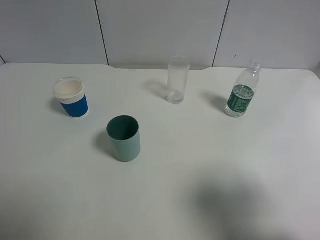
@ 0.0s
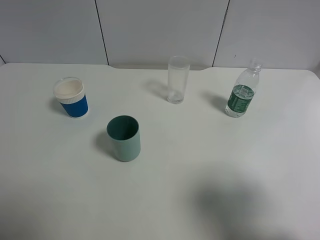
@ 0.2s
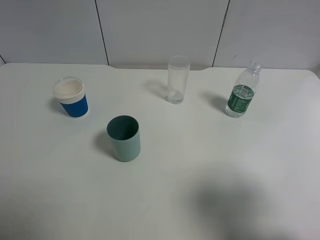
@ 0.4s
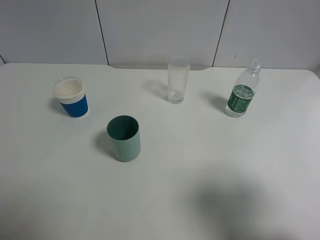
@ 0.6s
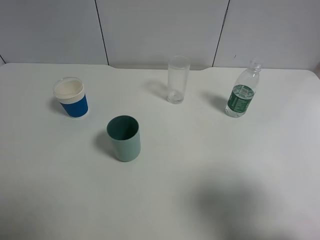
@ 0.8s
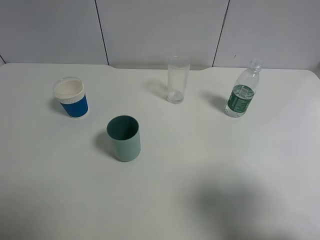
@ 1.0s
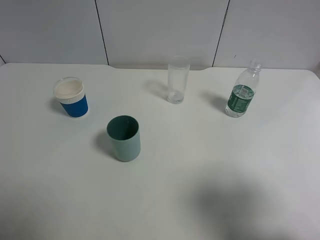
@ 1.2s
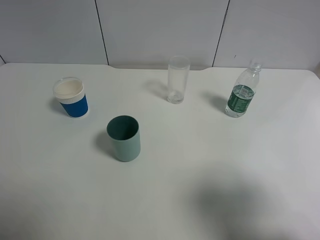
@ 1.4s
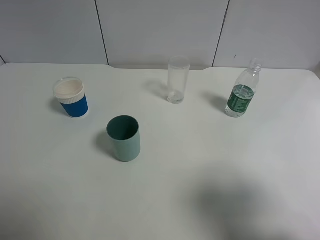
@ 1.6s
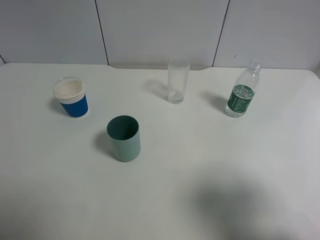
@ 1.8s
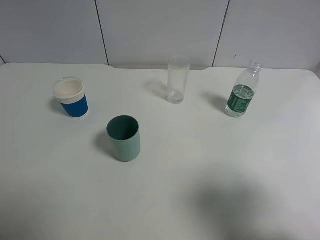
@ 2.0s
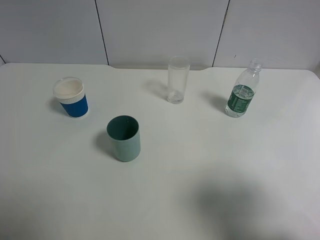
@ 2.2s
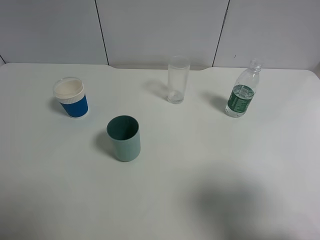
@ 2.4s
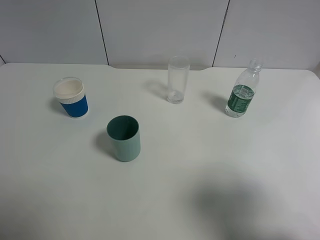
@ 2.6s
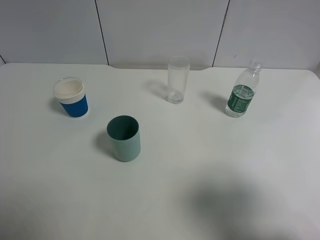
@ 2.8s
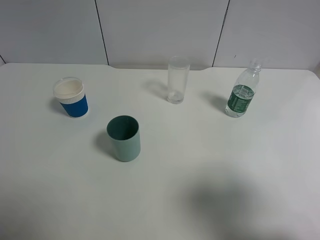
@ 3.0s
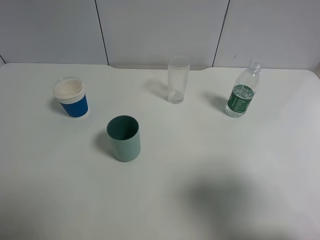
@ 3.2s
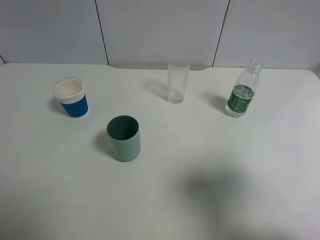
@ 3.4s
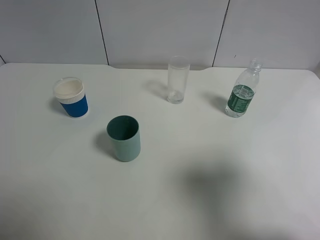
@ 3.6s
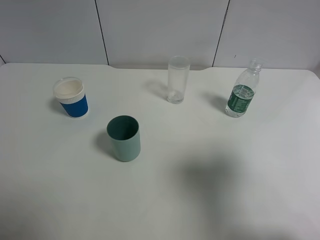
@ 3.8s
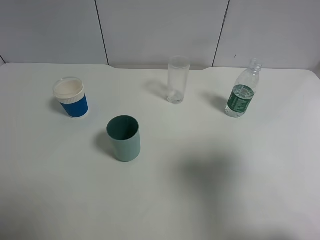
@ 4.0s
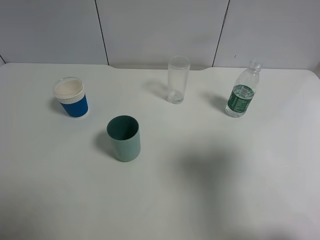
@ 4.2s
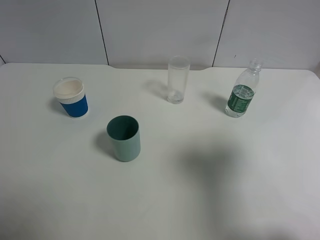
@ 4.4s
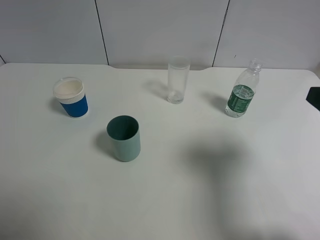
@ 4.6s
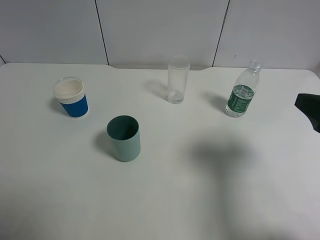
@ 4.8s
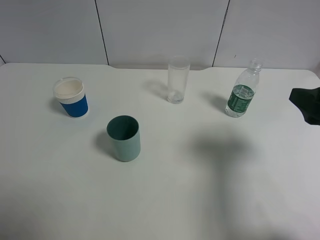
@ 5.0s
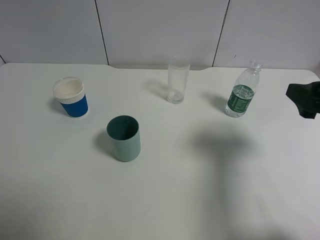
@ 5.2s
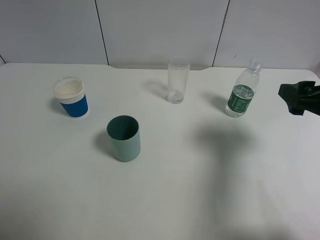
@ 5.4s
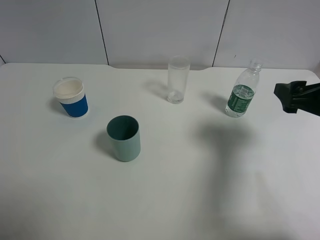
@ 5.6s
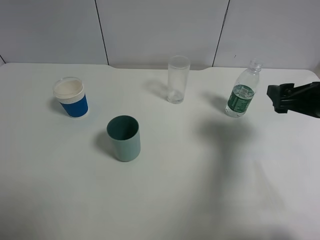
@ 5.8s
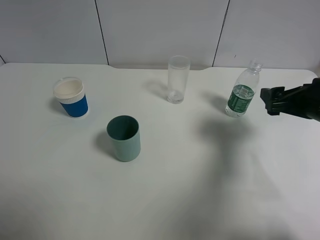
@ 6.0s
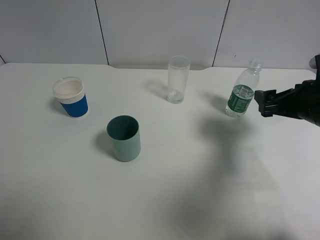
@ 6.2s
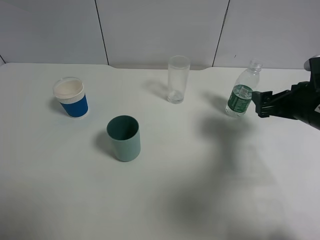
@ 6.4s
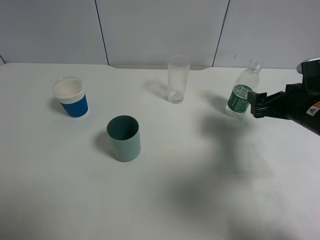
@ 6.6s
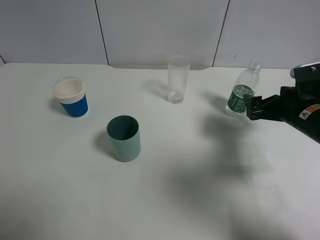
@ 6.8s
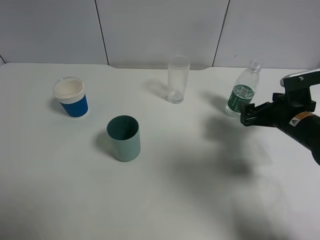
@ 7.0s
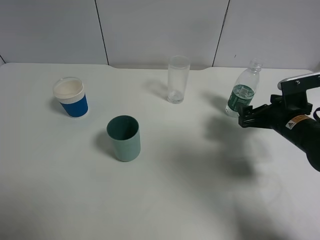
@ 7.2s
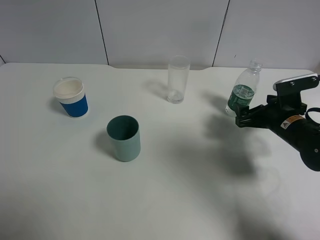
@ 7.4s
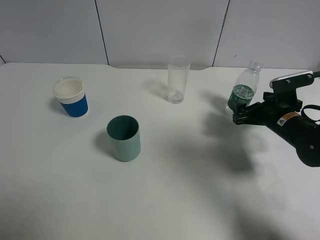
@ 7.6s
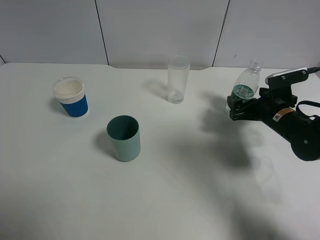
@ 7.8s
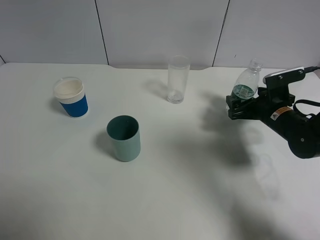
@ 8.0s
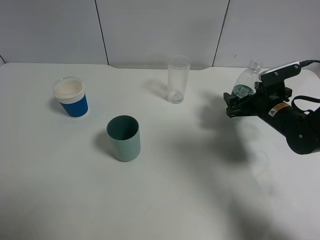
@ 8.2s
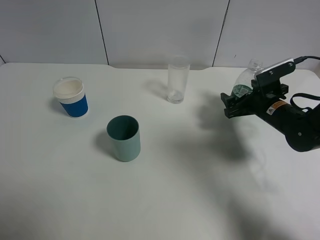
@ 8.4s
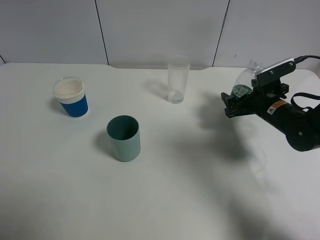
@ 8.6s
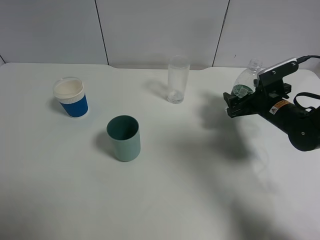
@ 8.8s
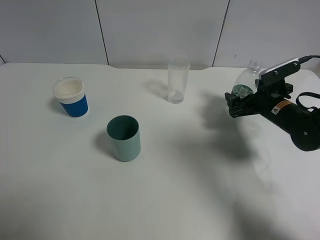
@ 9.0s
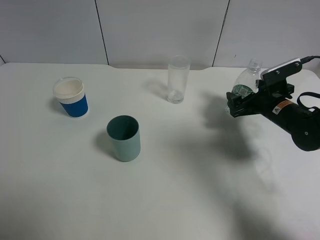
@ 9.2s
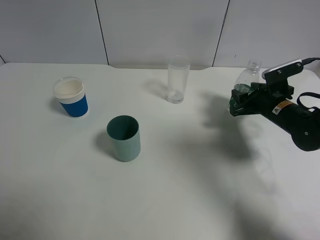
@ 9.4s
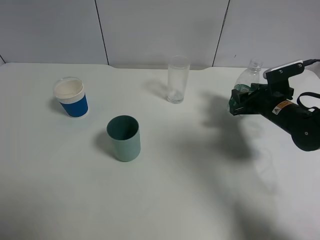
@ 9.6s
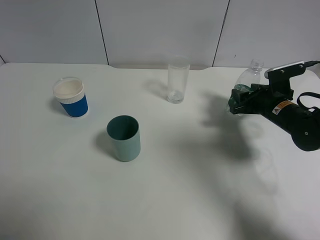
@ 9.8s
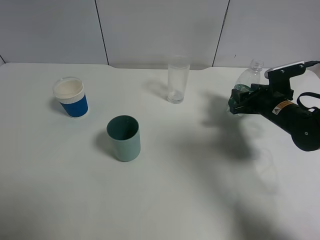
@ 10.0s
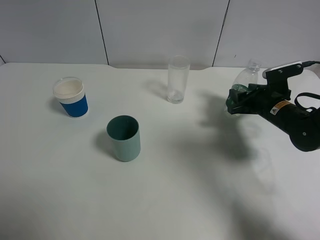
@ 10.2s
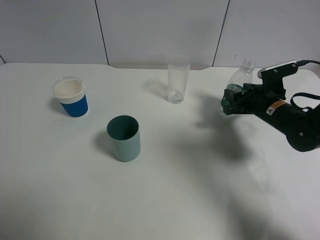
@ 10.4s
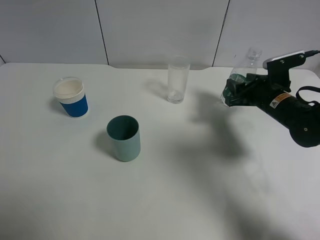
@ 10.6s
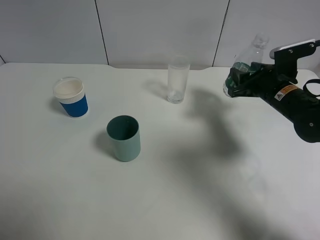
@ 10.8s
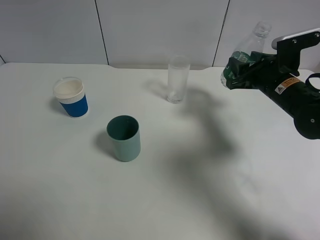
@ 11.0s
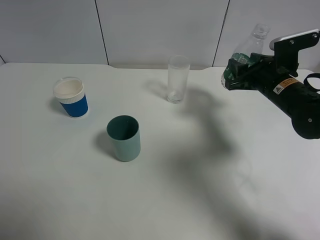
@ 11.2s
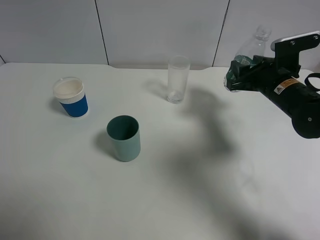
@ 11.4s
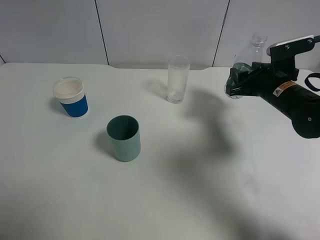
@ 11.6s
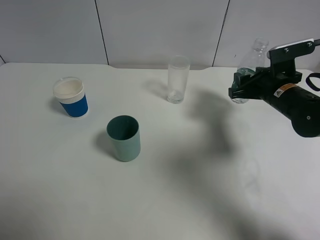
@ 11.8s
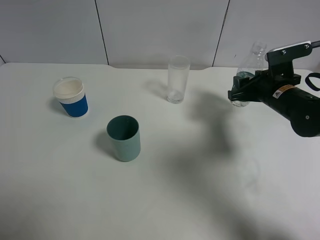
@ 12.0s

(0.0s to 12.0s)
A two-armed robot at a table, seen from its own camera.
Task of the whole recording: use a gripper to hold the bottle of the drink and pour it into a random cup.
Step, 0.0s - 10.2s: Grasp the mineral water bottle with the right gripper.
0.0s - 3.0s: The two grippers keep their place.
3.0s - 4.4s: The right gripper travels forward by roughly 10 cm.
4.4s - 6.0s: The right gripper goes about 15 cm forward and downward.
6.0s - 7.6s: The right gripper travels downward and forward by some 10 cm.
7.6s - 9.0s: There are only small adjustments of the grippers.
9.0s - 10.4s: The right gripper closes.

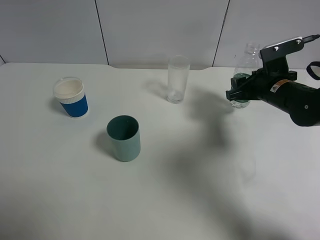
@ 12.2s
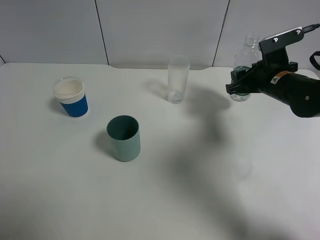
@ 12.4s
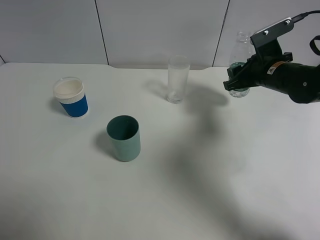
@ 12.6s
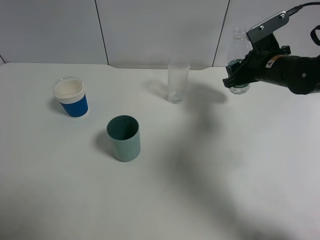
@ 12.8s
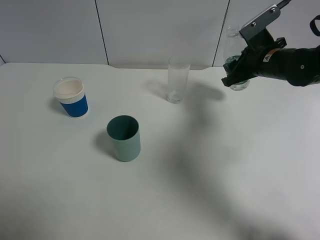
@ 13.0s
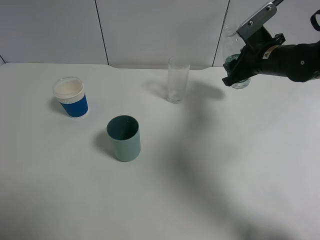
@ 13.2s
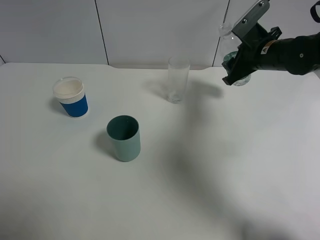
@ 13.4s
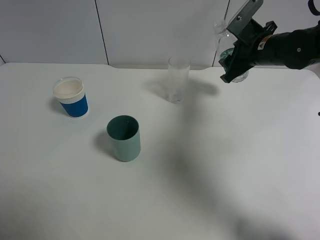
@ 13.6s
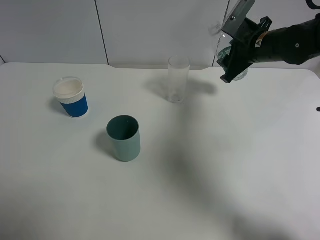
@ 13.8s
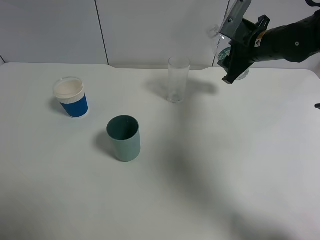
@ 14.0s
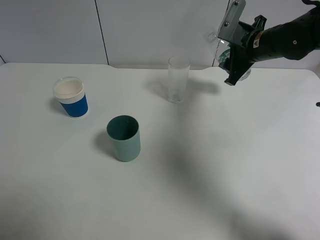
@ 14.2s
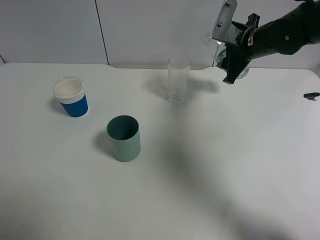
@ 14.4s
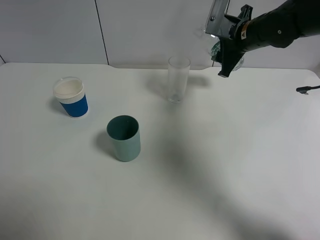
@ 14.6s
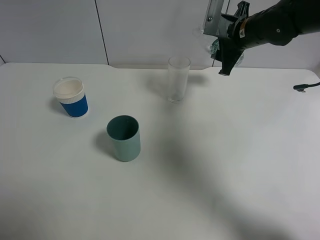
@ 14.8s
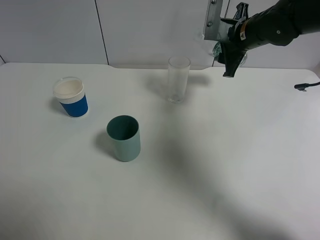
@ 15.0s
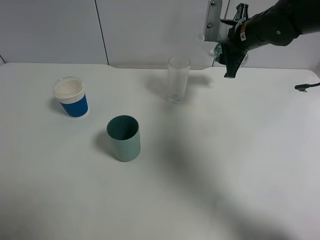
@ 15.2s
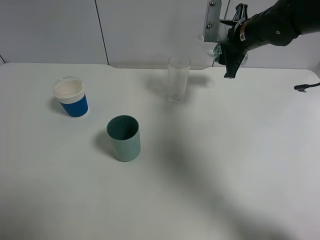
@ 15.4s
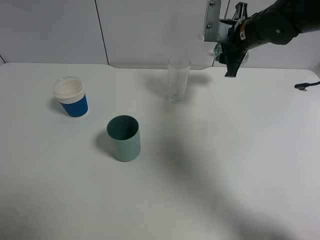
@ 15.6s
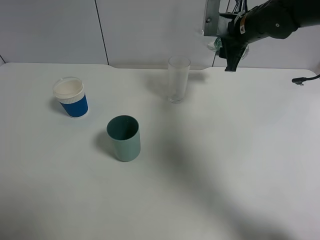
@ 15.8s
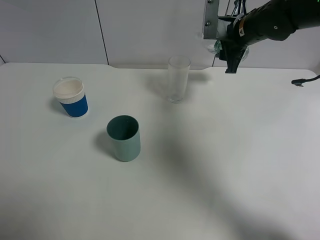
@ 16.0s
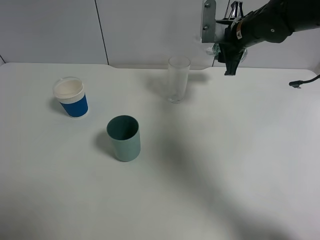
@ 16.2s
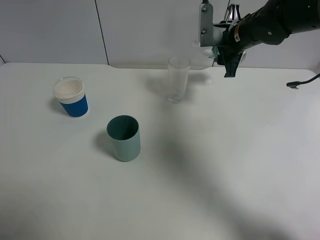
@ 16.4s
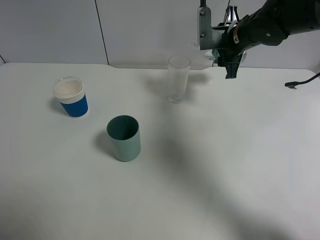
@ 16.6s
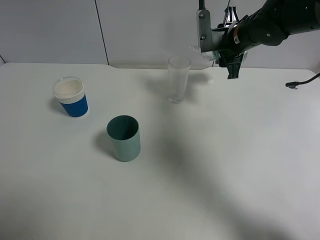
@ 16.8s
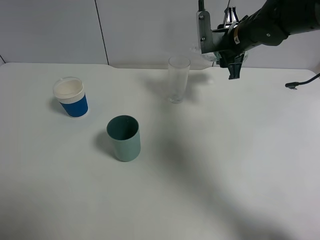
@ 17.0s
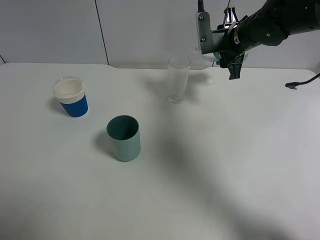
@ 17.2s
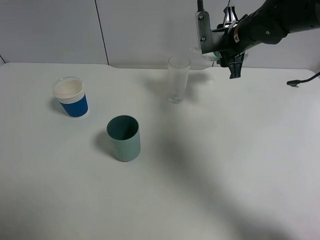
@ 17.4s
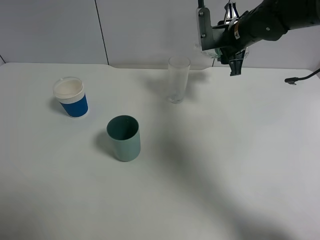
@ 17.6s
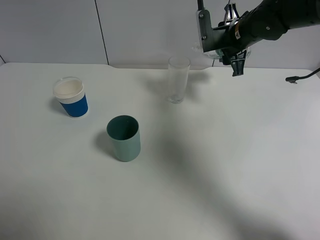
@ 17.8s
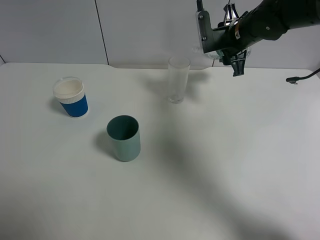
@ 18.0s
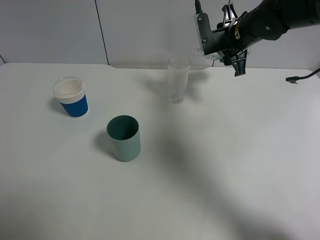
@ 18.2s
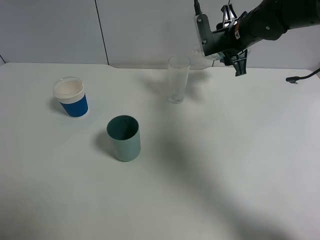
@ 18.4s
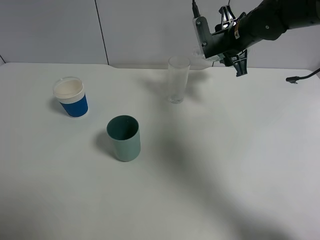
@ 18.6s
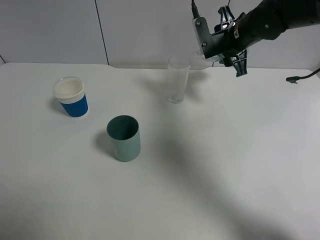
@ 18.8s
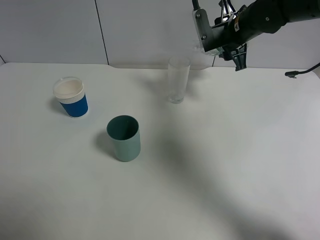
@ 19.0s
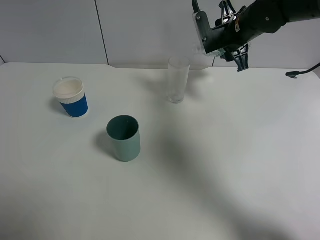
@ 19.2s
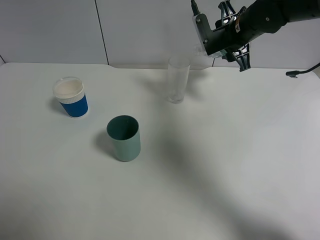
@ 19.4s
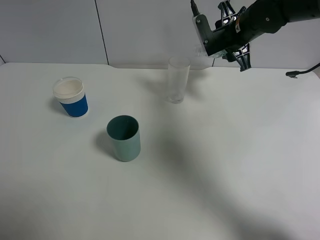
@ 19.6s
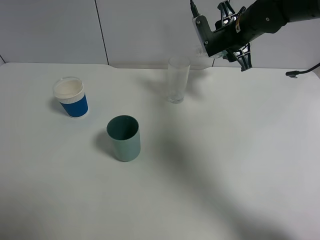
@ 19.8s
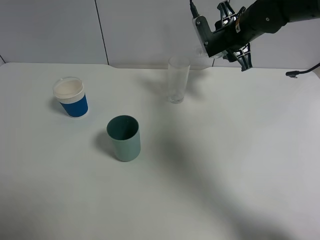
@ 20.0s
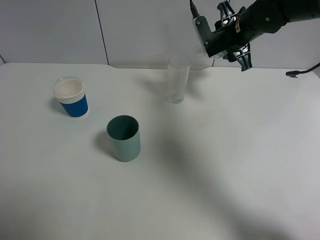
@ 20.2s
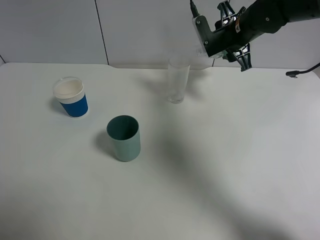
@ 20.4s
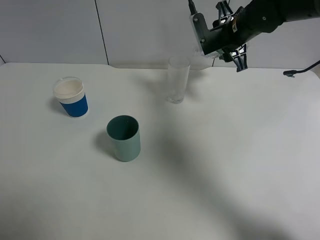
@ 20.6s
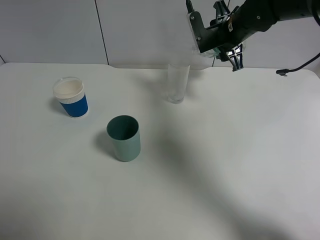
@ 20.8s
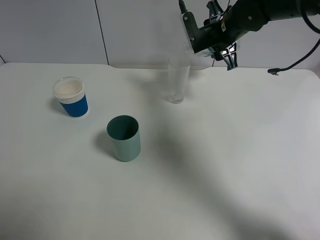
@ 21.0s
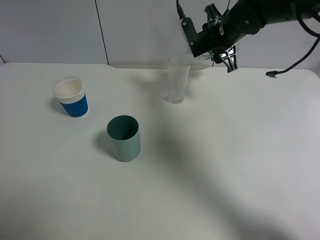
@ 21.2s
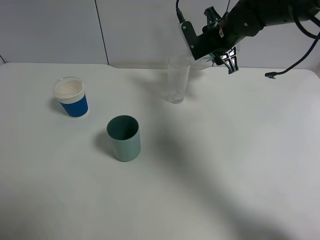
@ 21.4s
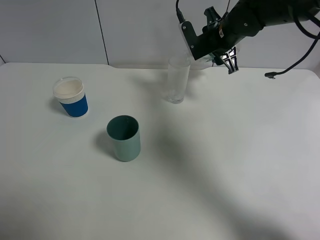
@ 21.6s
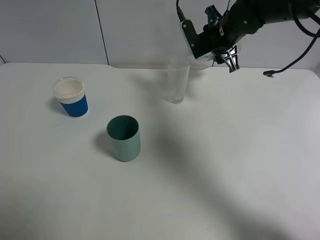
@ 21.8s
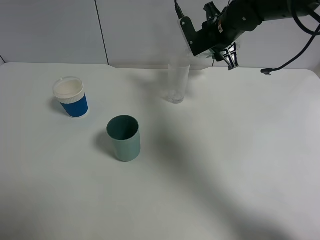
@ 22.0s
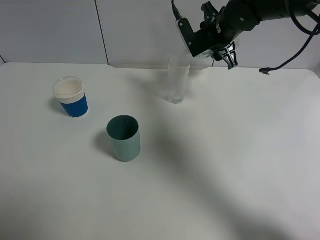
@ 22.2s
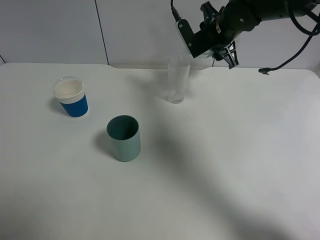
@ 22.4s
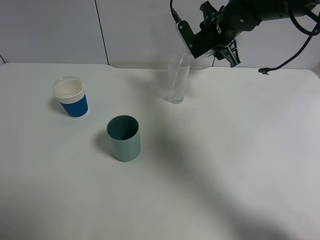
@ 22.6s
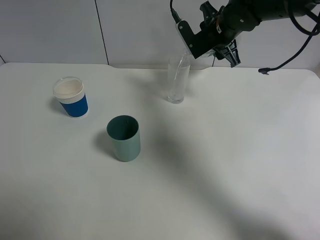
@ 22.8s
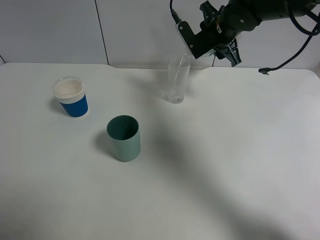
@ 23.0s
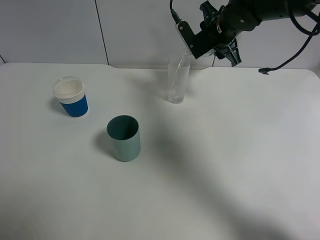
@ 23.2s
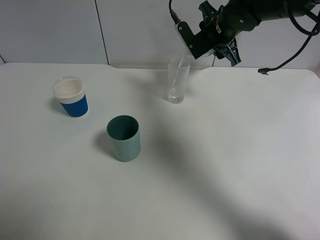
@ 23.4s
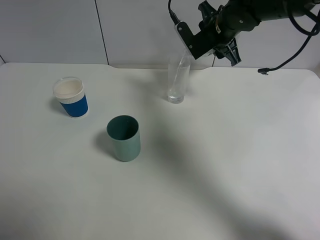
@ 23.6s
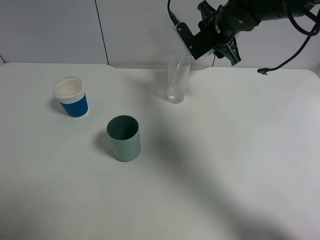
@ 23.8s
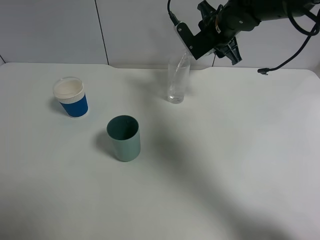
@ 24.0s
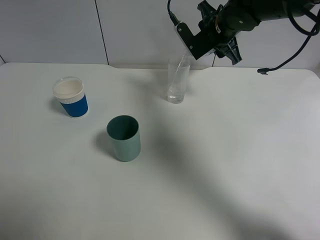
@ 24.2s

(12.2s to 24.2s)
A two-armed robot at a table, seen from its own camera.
Task of the whole recording: use a gripper to hold the bottle of the drink and pour it into a random cup.
12.2s - 13.8s: The right gripper travels upward and forward by about 10 cm.
15.2s - 16.6s: The grippers stay close to where they were, moving slightly.
16.6s - 18.2s: The grippers move only a little.
18.2s - 22.6s: The grippers move only a little.
22.6s - 24.2s: Both grippers stay about where they are.
